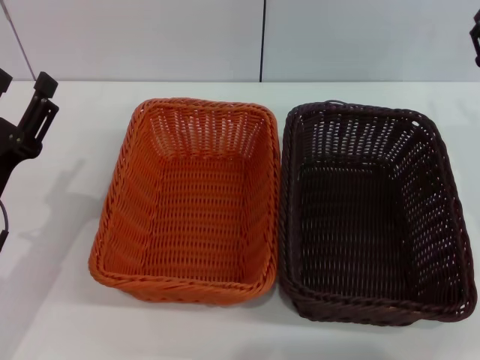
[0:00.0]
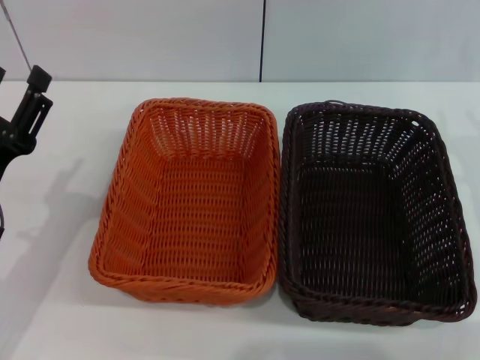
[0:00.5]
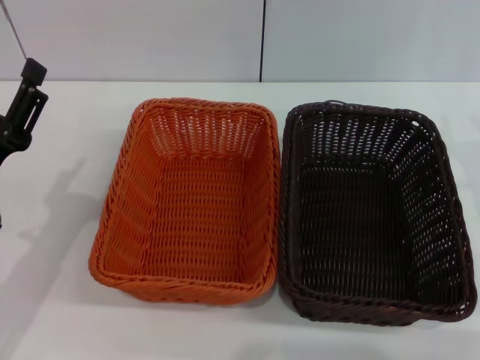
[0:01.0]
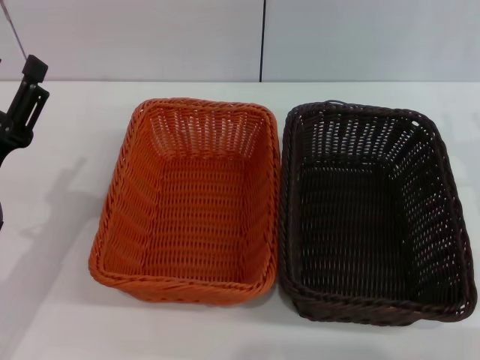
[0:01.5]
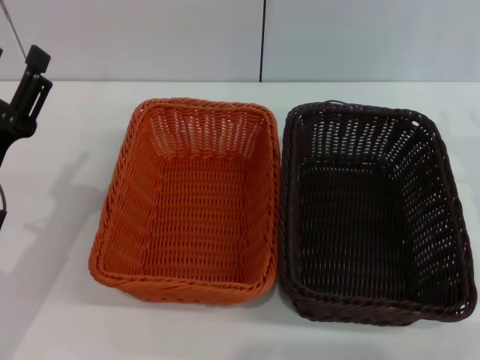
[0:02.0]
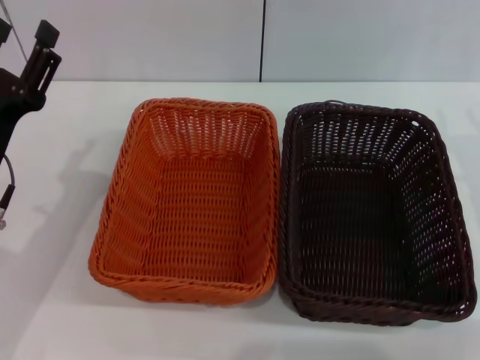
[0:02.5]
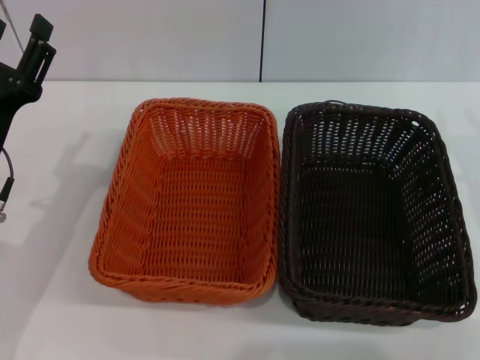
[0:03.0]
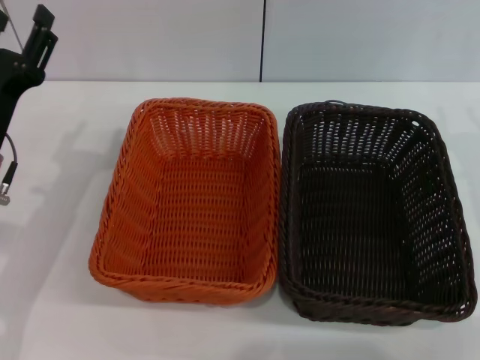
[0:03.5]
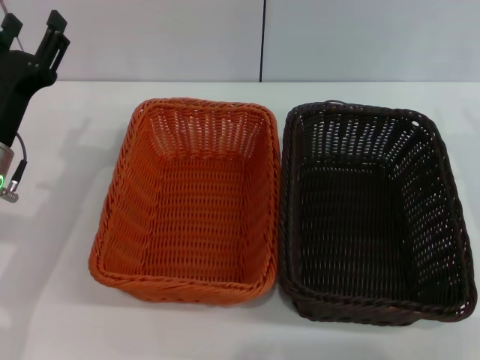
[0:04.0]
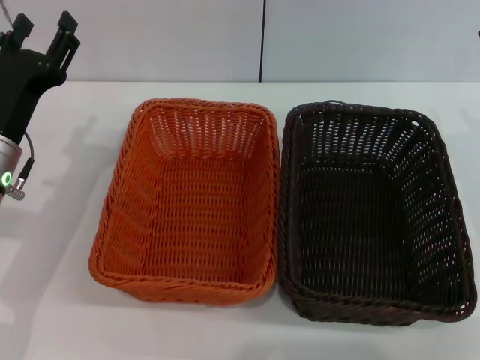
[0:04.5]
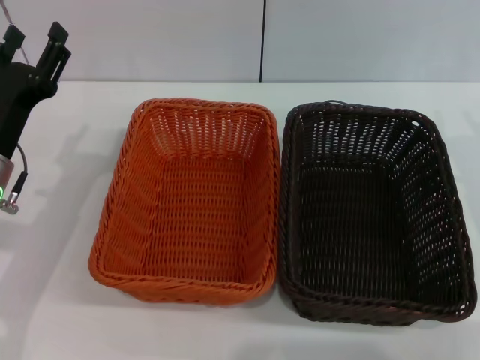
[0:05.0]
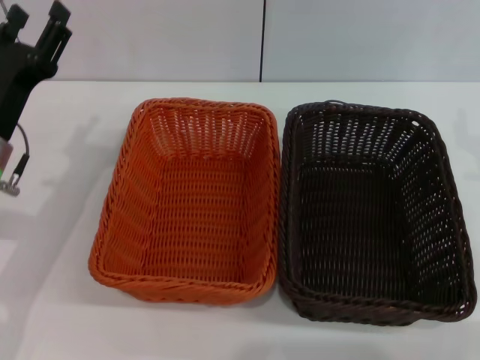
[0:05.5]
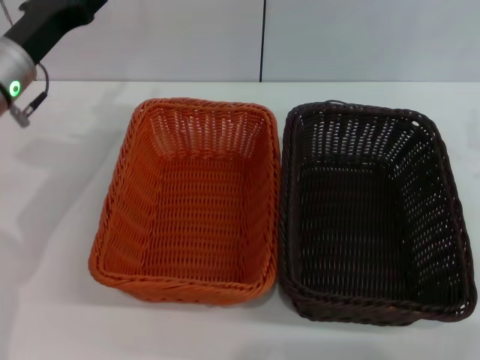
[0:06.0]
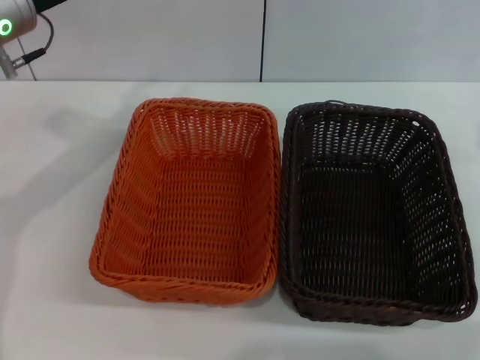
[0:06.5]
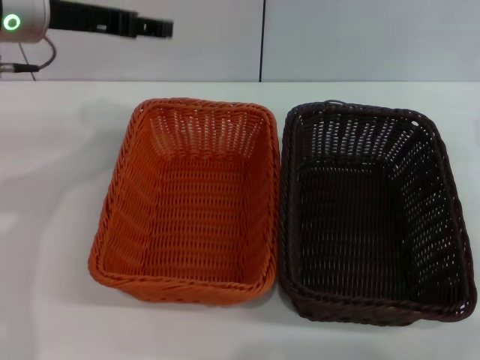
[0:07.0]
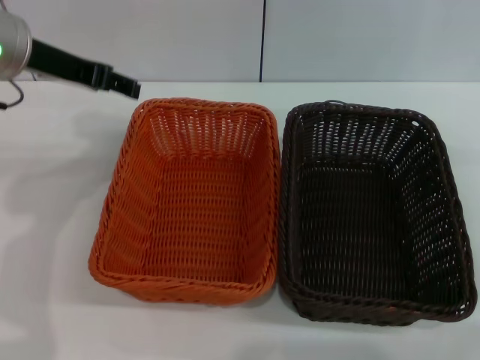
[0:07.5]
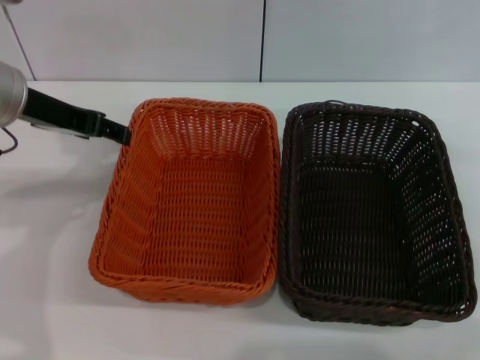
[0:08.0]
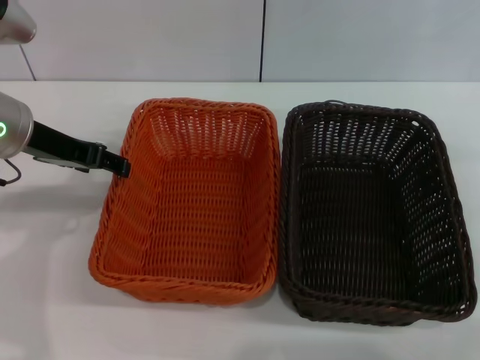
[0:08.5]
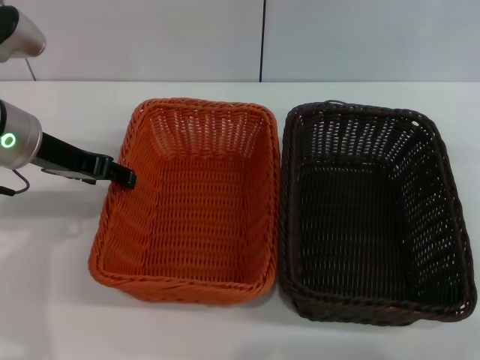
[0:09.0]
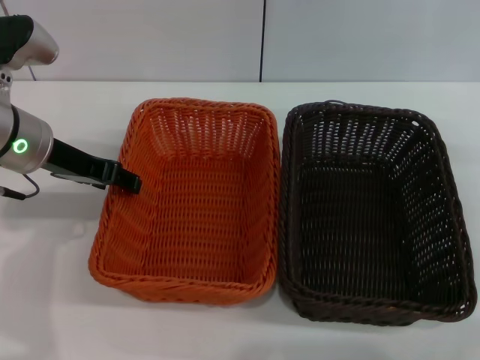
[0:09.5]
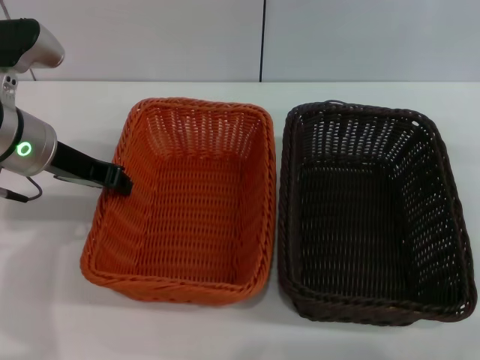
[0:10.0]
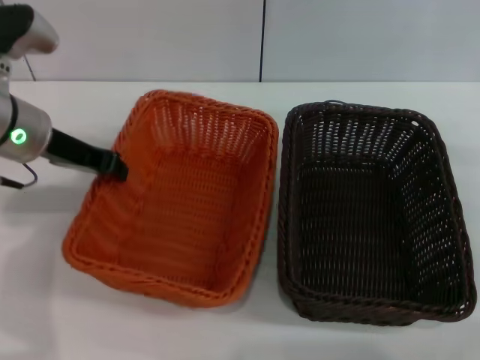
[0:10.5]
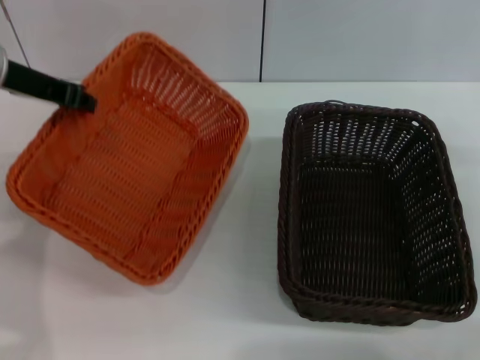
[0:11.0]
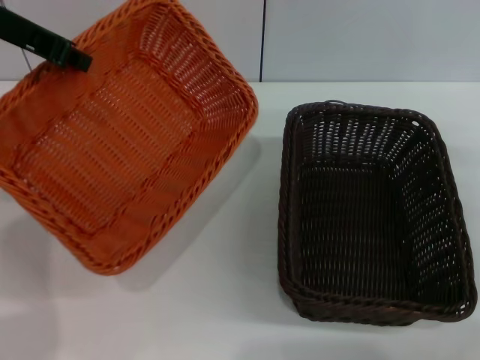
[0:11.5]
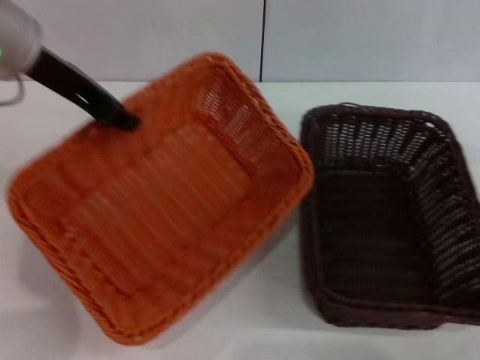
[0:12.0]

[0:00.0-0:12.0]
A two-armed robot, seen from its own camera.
Step, 0:00.0 to 0:10.5: Pick up the light basket with the left gripper.
0:00.0 to 0:02.0: The grippers stay close to where they were, moving slightly.
0:02.0 to 0:04.0: The left gripper goes approximately 5 cm forward.
0:04.0 to 0:06.0: The left gripper heads forward and upward, covering roughly 10 cm.
0:06.0 to 0:08.0: The left gripper shifts about 5 cm upward.
0:08.0 to 0:10.0: The left gripper is displaced downward by approximately 5 cm, and closes its fingers.
0:10.0 to 0:12.0: The left gripper heads upward, covering some 10 cm, and closes.

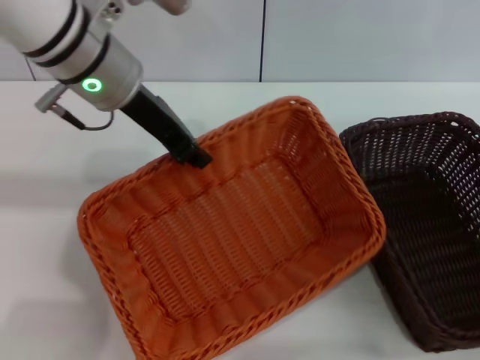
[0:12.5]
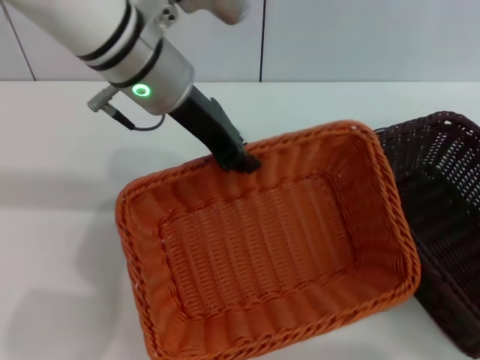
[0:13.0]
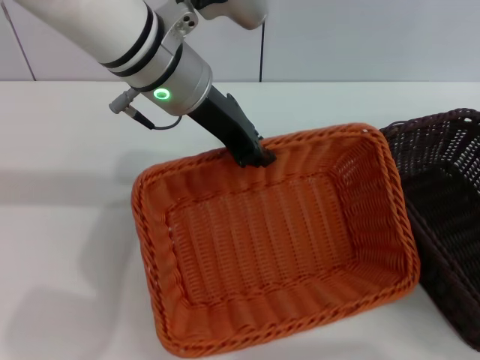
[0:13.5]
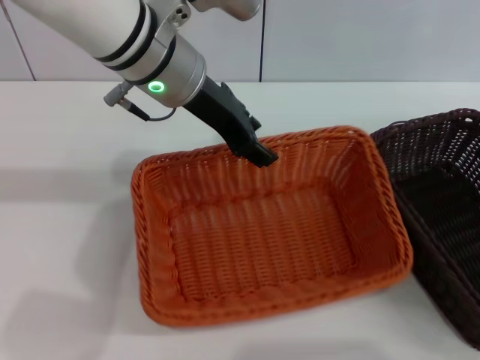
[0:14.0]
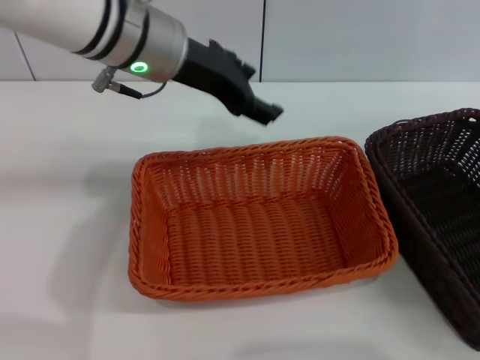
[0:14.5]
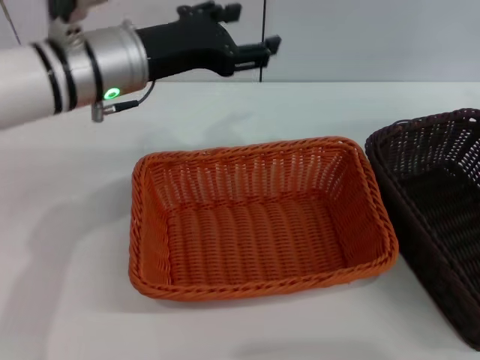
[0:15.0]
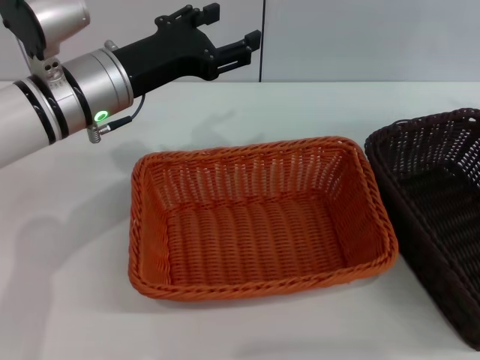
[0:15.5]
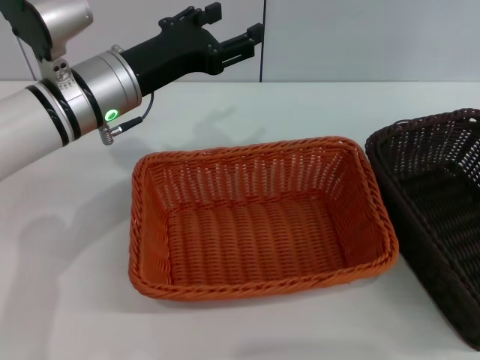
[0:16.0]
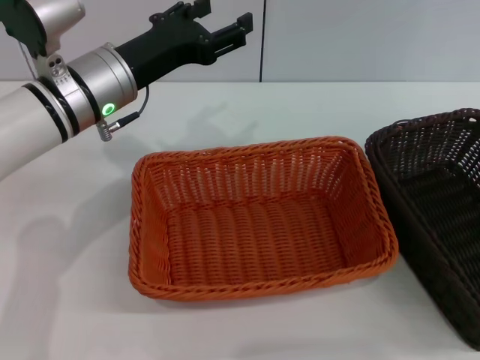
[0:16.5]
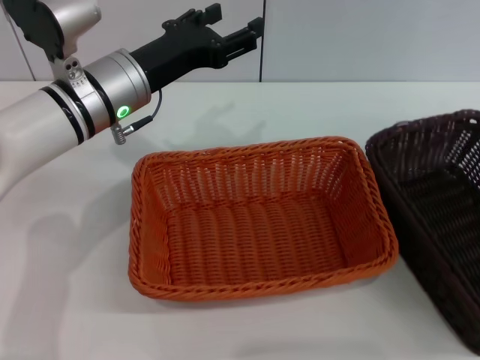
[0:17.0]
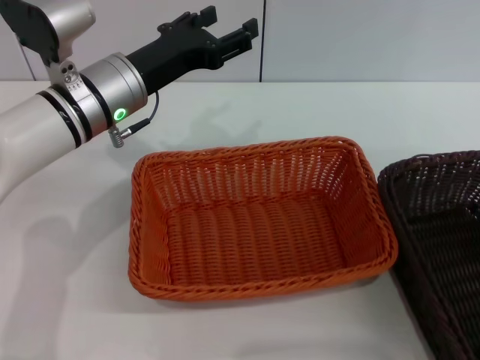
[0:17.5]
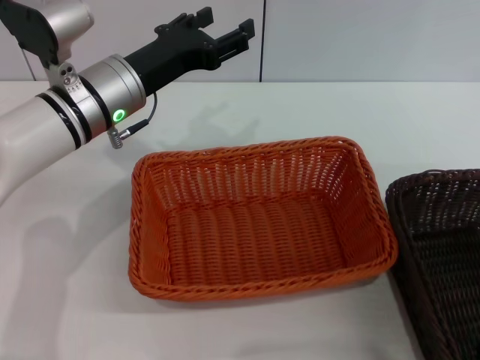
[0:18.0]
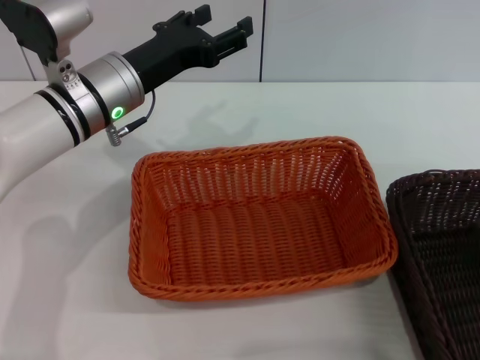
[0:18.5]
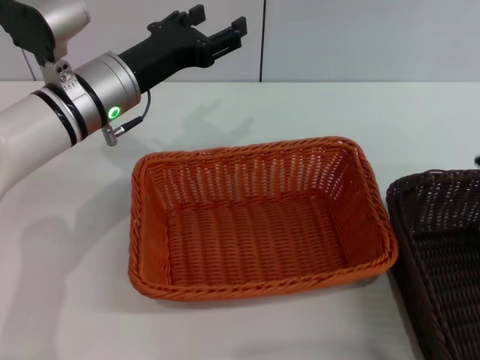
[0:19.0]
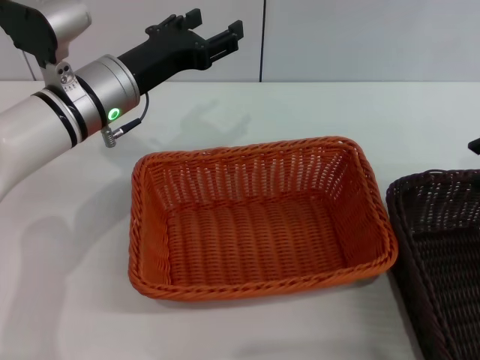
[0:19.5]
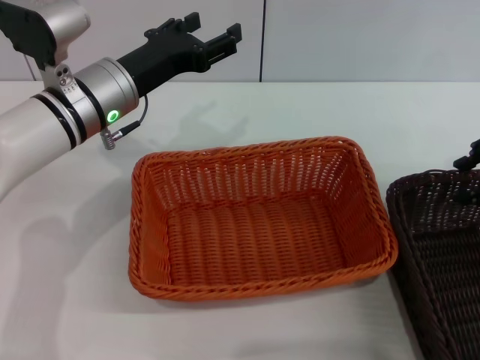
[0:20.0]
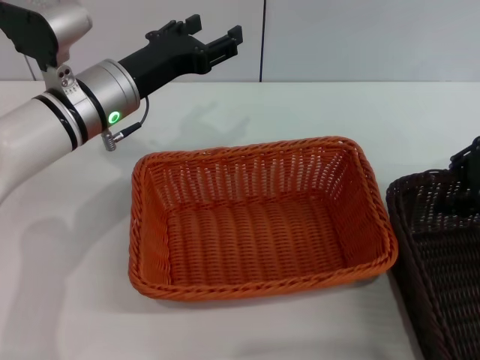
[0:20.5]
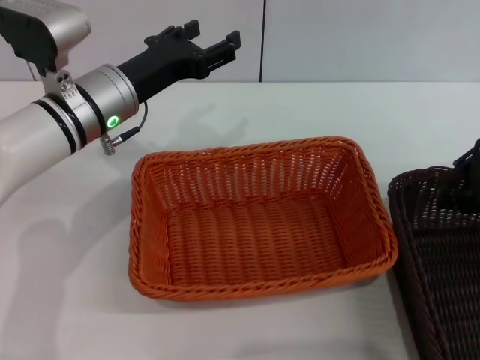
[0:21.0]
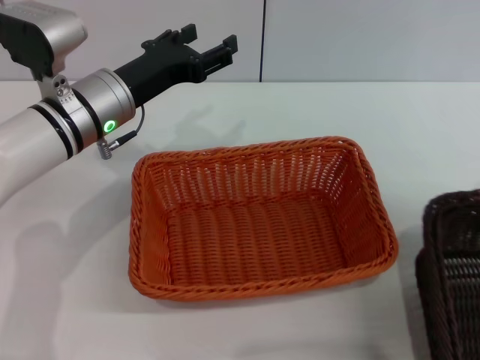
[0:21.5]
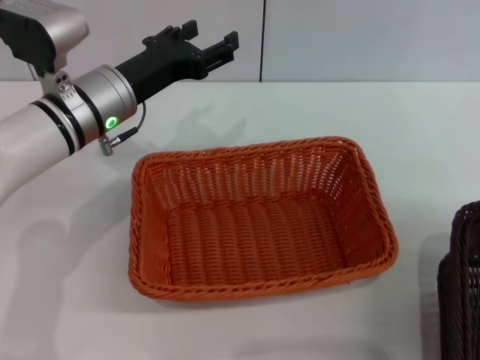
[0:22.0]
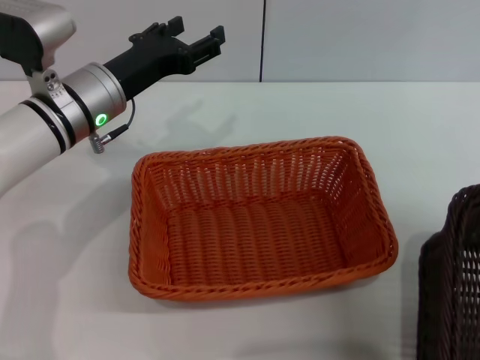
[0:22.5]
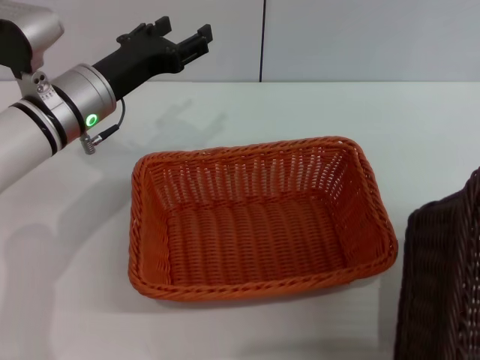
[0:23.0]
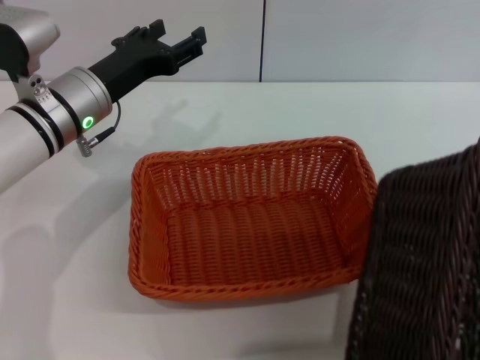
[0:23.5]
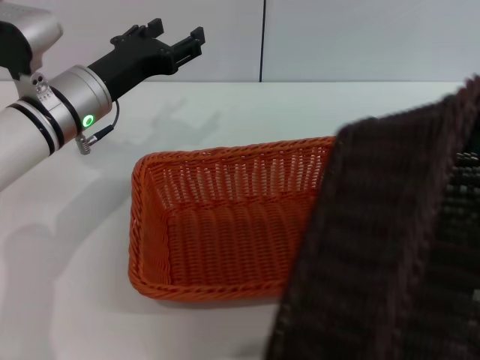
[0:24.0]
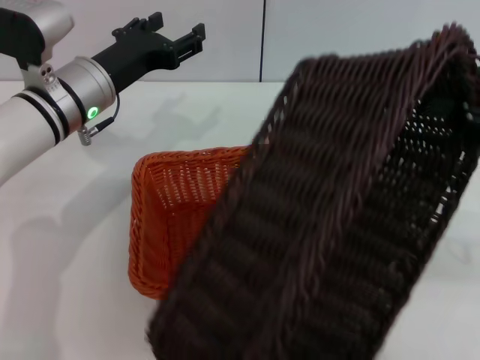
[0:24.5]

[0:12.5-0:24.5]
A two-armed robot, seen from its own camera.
Step, 0:12.5 to 0:14.0: Place the light basket in the center of view with the left gripper.
Step, 0:14.5 to 0:22.0: Pick up the dark basket with the right gripper.
0:12.5 to 0:14.5: The left gripper opens up.
0:14.5 to 0:16.5: The left gripper heads downward and to the left, covering about 10 cm. Meanwhile the right gripper travels upward by some 10 cm.
0:18.5 to 0:20.5: The right gripper is displaced forward by some 10 cm.
0:20.5 to 0:22.5: The right gripper travels backward, to the right and upward by some 10 cm, and closes up.
0:22.5 to 0:24.5: The right gripper travels to the left by some 5 cm.

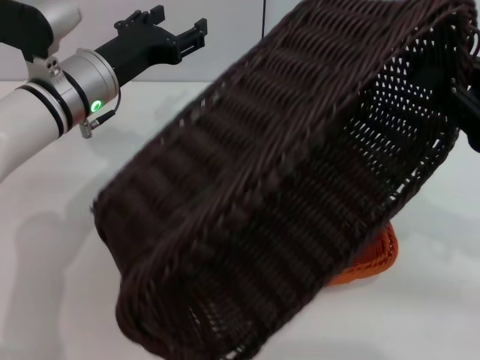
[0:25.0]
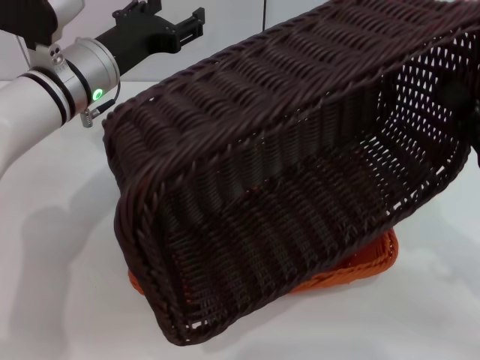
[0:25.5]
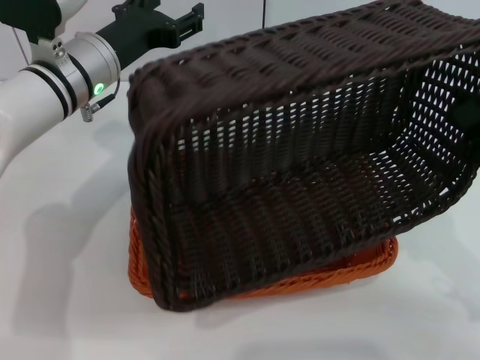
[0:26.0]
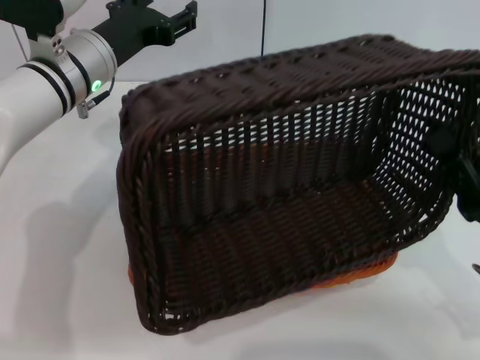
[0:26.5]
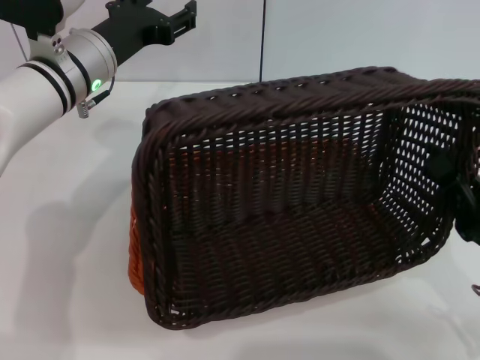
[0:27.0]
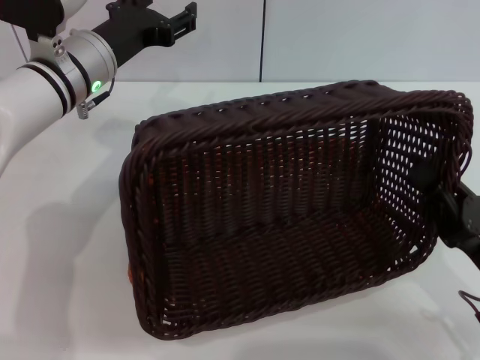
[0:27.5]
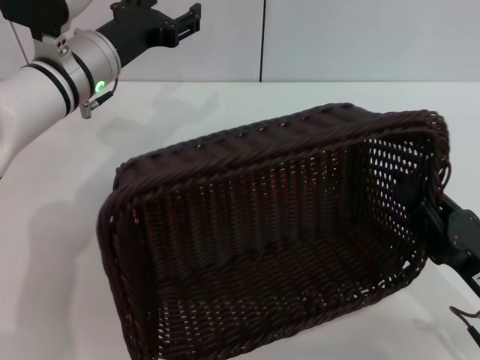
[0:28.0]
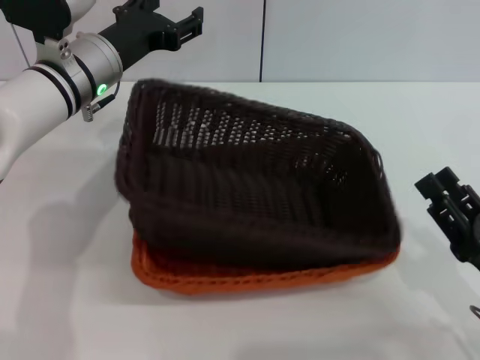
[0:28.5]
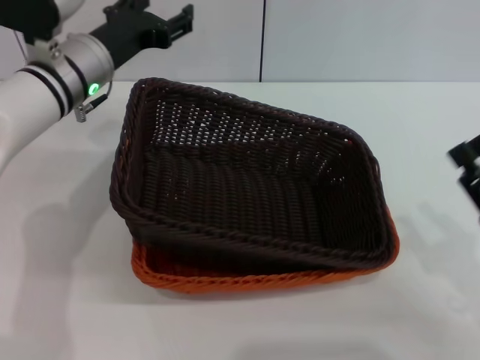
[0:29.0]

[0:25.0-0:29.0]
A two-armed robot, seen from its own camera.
Step, 0:25.0 to 0:28.5: Place the dark basket on the light basket with the right gripper.
0:25.0 to 0:27.0: The right gripper goes roughly 15 cm downward and backward.
0:27.0 to 0:29.0: The right gripper opens up.
